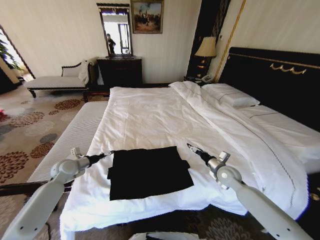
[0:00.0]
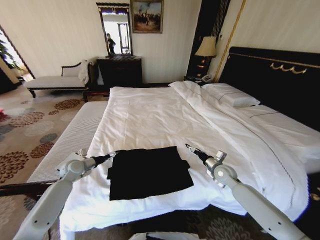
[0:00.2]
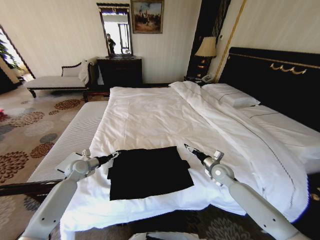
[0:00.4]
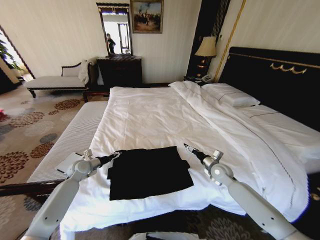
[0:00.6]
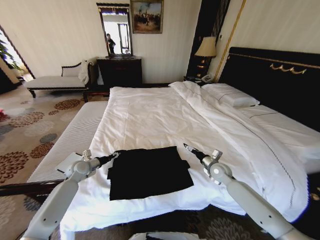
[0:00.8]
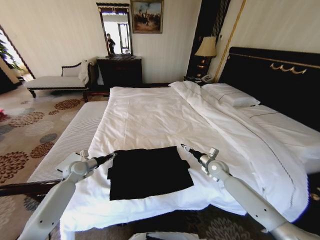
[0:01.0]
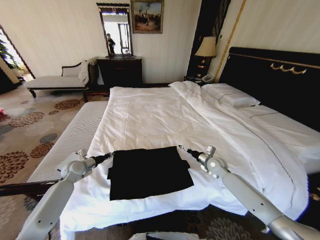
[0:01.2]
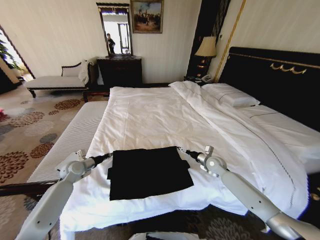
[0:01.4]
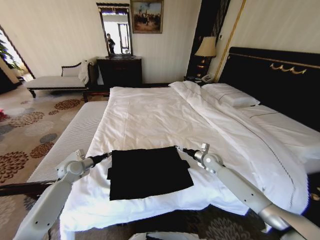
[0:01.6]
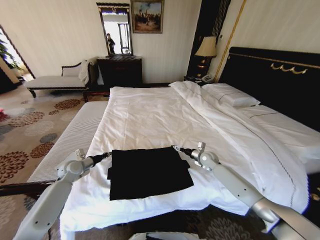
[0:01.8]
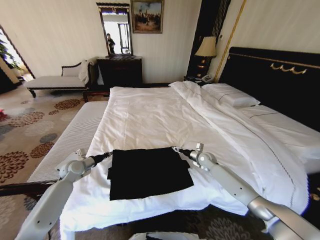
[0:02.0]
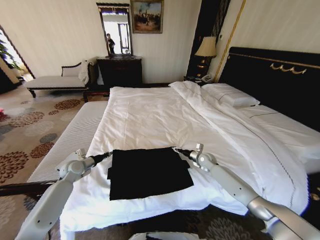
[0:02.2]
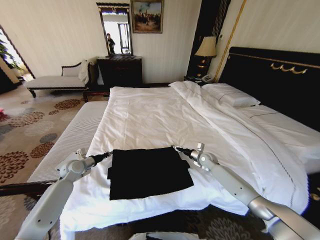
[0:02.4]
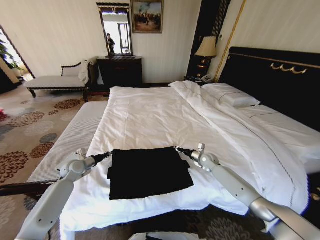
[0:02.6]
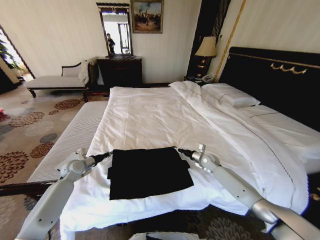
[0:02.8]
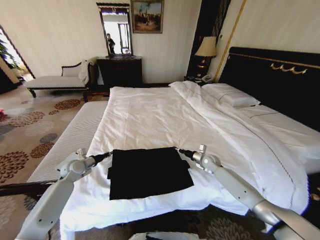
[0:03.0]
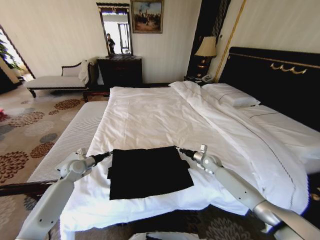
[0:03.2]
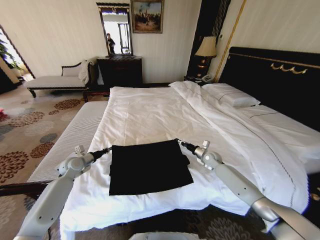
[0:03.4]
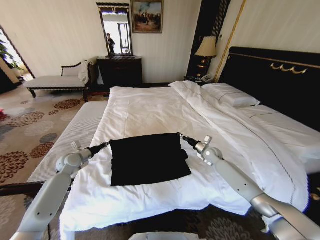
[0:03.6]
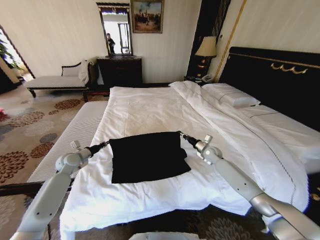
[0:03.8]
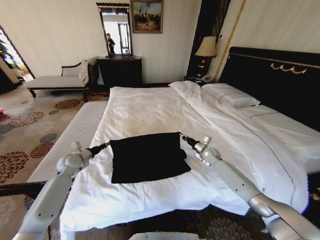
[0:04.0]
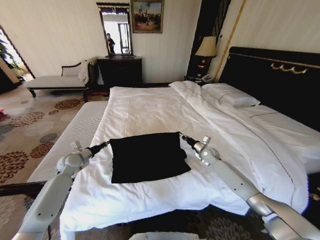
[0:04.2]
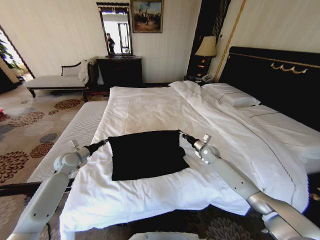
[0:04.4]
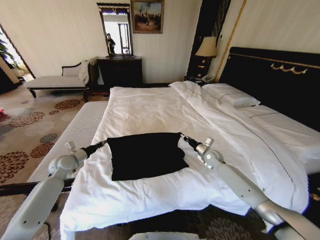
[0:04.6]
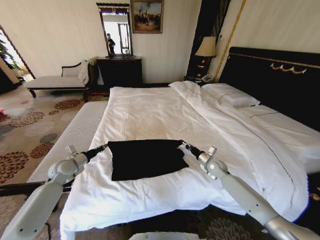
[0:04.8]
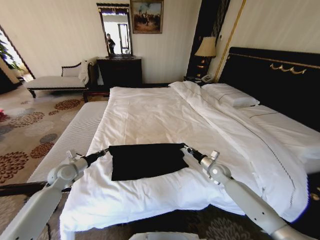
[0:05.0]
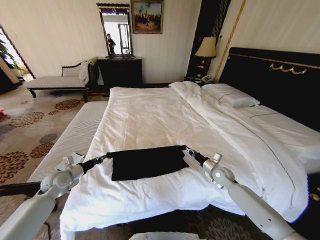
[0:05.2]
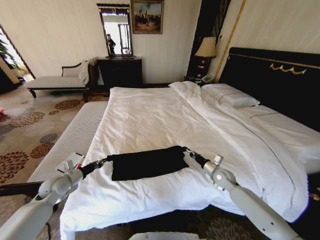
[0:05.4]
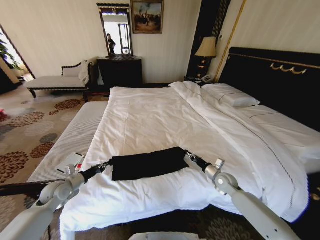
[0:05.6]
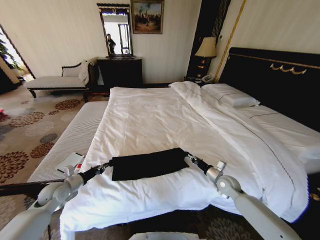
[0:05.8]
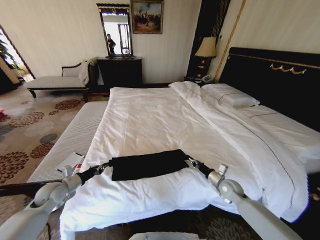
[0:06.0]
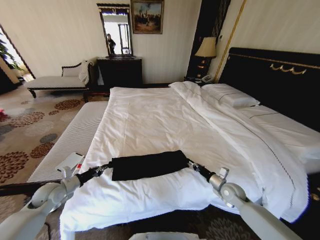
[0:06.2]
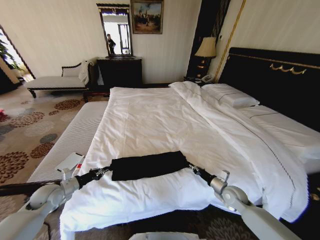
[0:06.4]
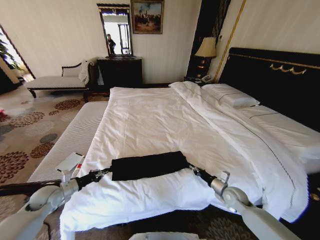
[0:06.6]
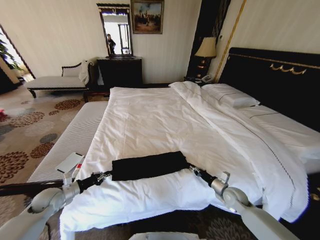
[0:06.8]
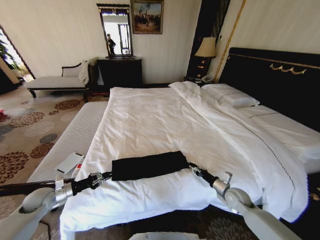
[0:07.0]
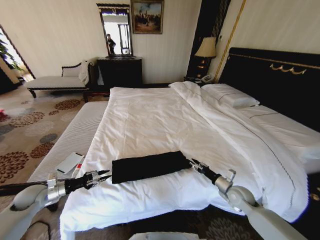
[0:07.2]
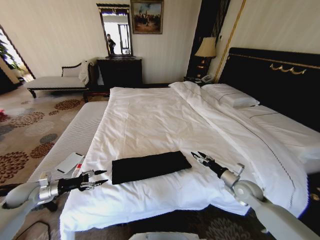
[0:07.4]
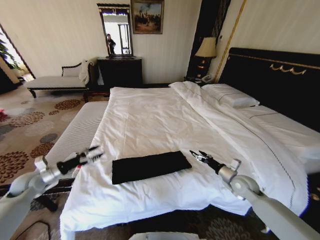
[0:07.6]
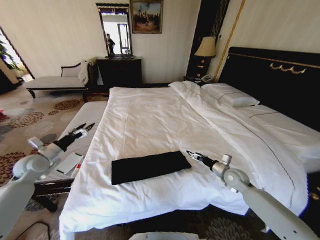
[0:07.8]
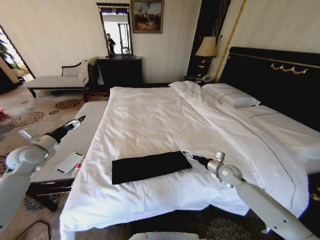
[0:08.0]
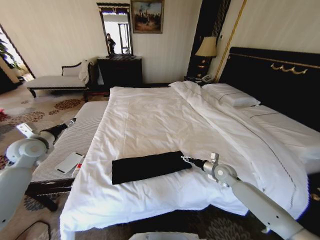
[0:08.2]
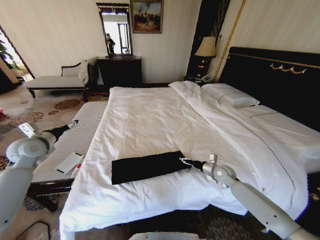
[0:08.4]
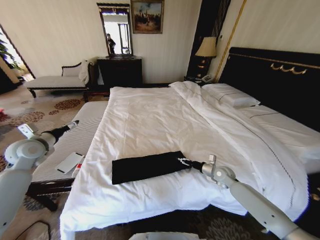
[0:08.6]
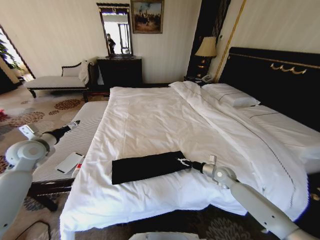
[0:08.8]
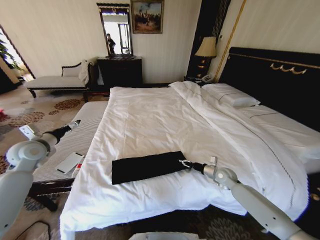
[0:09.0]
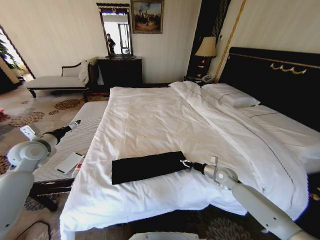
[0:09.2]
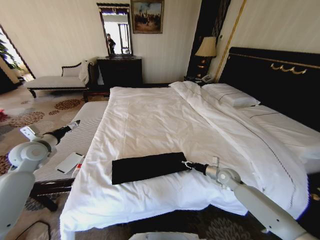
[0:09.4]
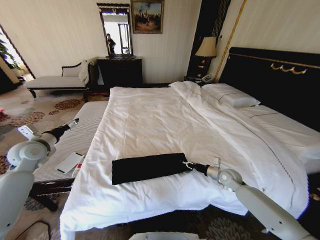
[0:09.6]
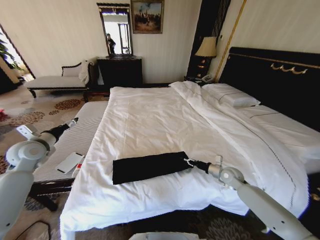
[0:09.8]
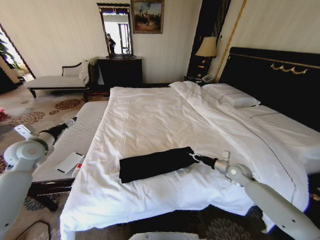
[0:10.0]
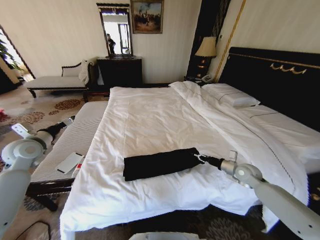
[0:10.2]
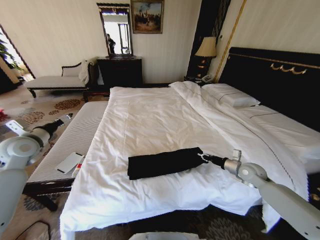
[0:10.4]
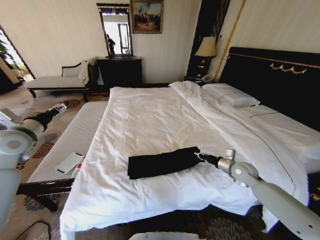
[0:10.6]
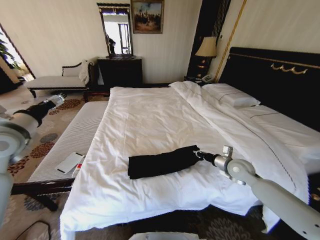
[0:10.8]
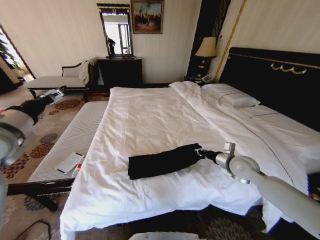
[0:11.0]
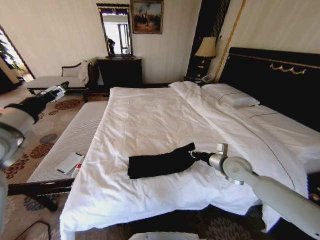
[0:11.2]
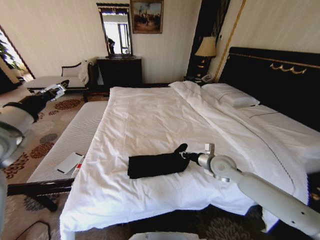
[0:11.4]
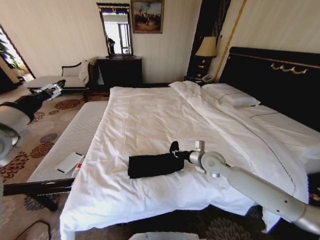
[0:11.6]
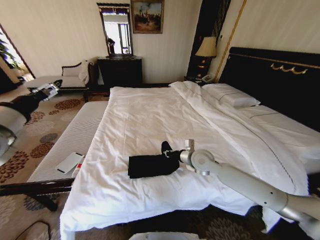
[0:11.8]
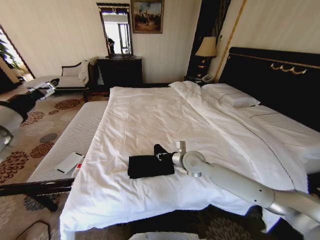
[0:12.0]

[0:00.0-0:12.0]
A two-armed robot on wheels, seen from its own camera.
Task of the whole recording: Fold the clothes on the bed.
0:00.0 to 0:01.6: The left gripper closes its fingers. Meanwhile the right gripper travels forward by approximately 10 cm.
0:01.6 to 0:03.0: The right gripper closes its fingers.
0:03.0 to 0:04.4: The right gripper ends up roughly 5 cm from where it was.
0:04.4 to 0:06.0: The grippers both shift backward by about 15 cm.
0:06.0 to 0:07.6: The left gripper goes roughly 10 cm to the left, and opens its fingers. Meanwhile the right gripper goes some 5 cm upward, and opens up.
0:07.6 to 0:09.0: The right gripper is displaced forward by approximately 5 cm, and closes, while the left gripper goes roughly 15 cm upward and forward.
0:09.0 to 0:10.4: The right gripper travels upward and to the right by approximately 10 cm, and closes its fingers.
0:10.4 to 0:12.0: The left gripper travels upward, backward and to the right by roughly 15 cm. The right gripper goes some 30 cm to the left.

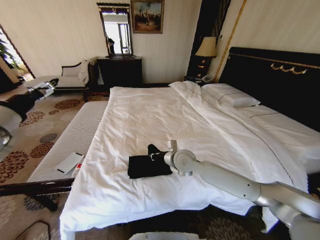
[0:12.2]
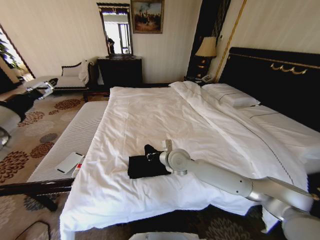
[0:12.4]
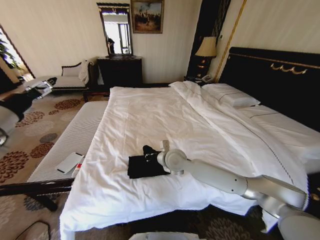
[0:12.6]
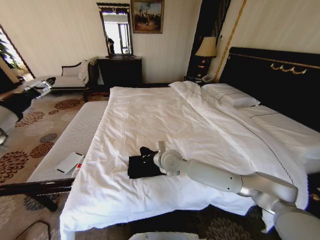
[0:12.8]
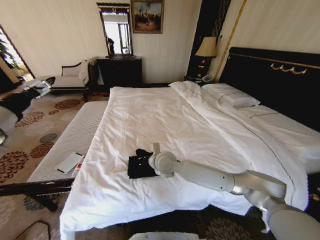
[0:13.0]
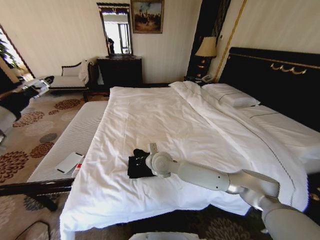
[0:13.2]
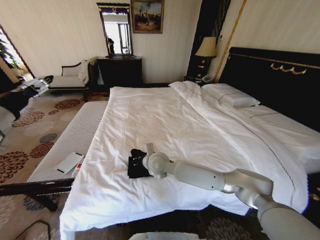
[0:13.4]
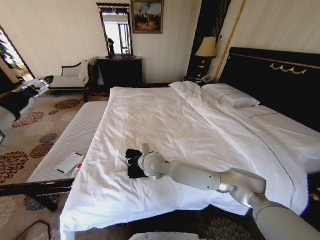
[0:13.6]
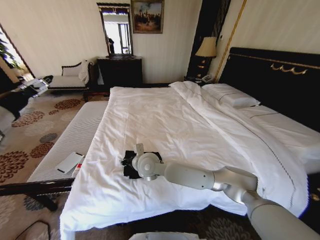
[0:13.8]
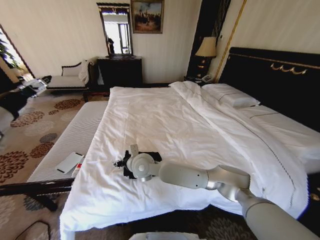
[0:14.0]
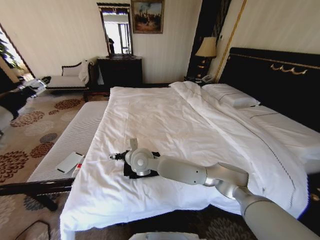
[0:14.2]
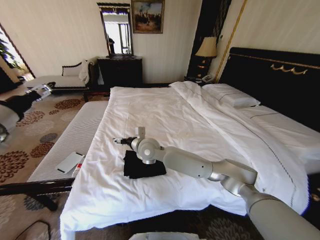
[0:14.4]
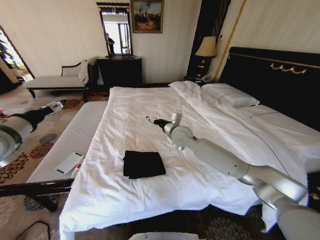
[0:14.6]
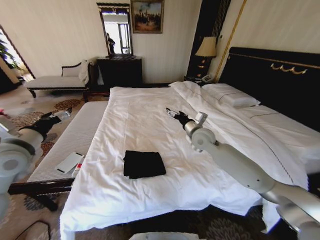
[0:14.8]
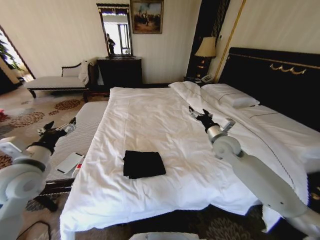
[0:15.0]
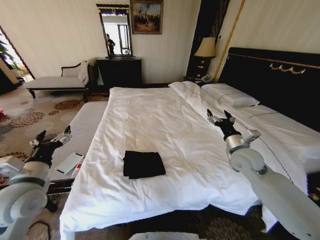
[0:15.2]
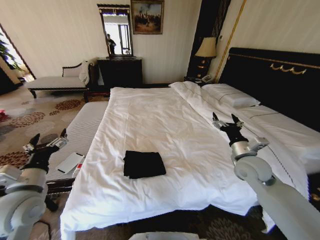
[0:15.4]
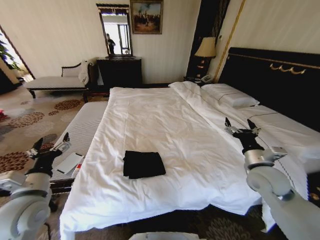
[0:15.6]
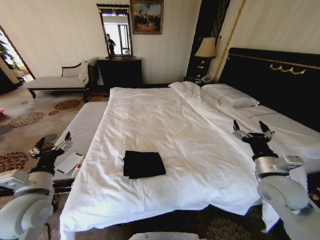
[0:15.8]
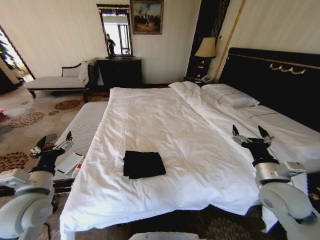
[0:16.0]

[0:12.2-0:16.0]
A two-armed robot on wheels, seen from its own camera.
Task of the whole recording: Fold the clothes on the bed.
0:12.2 to 0:13.4: The right gripper goes approximately 10 cm to the left.
0:13.4 to 0:14.8: The right gripper moves to the right, forward and upward, roughly 20 cm, and opens its fingers. Meanwhile the left gripper heads downward, covering roughly 10 cm.
0:14.8 to 0:16.0: The left gripper moves downward, backward and to the right, roughly 15 cm; the right gripper heads backward and to the right, covering about 30 cm.
